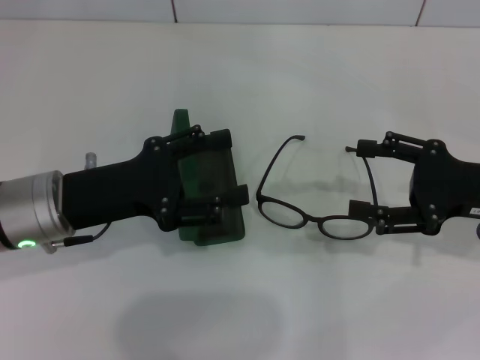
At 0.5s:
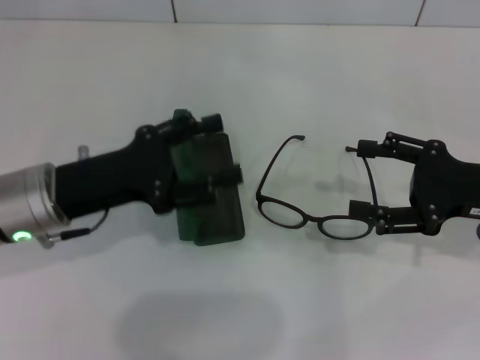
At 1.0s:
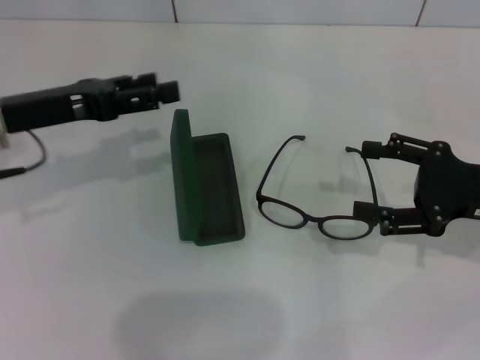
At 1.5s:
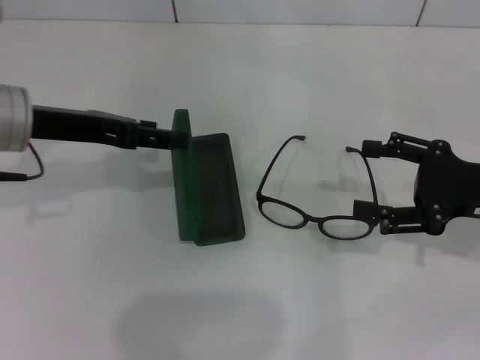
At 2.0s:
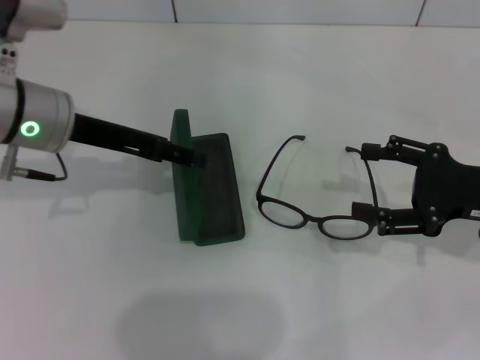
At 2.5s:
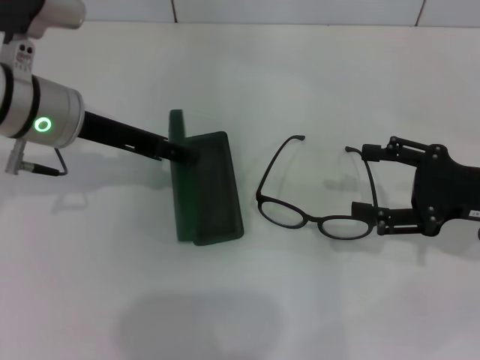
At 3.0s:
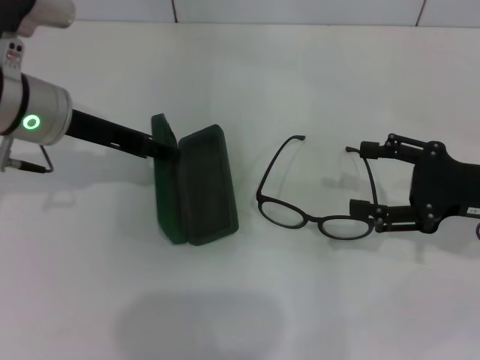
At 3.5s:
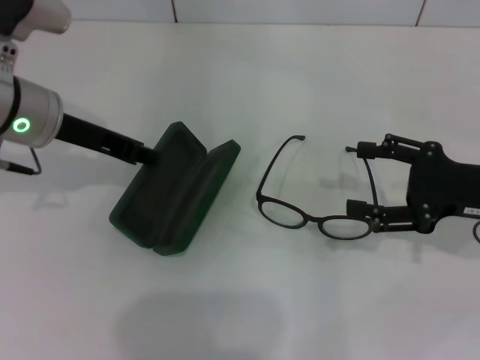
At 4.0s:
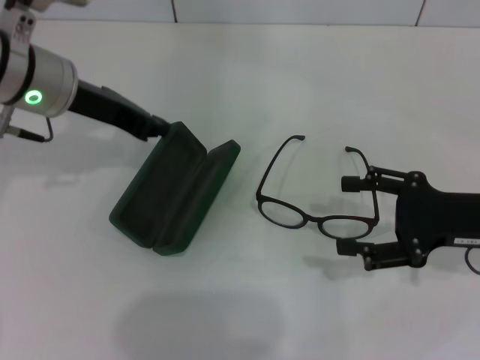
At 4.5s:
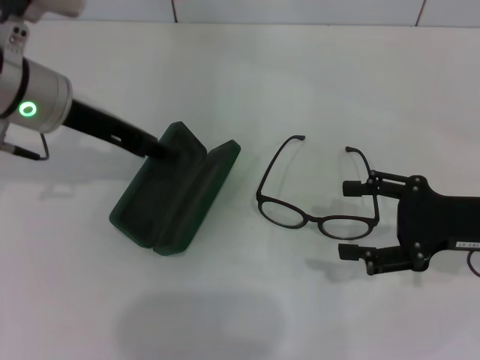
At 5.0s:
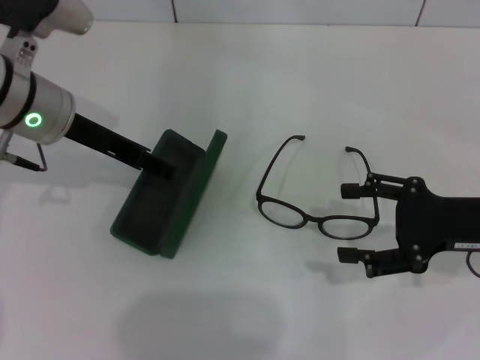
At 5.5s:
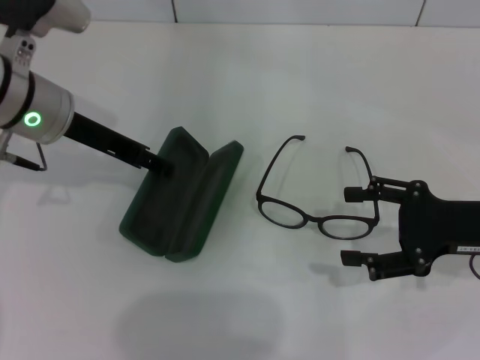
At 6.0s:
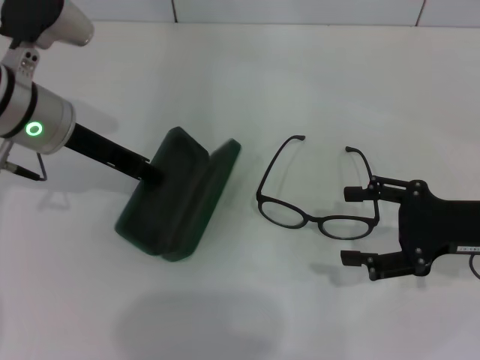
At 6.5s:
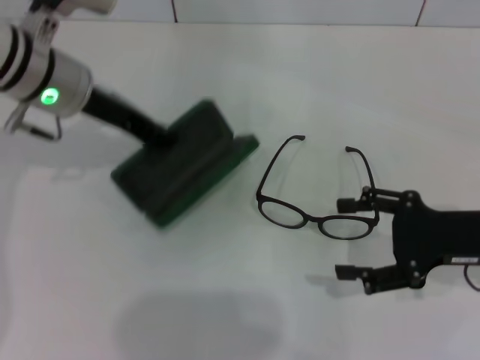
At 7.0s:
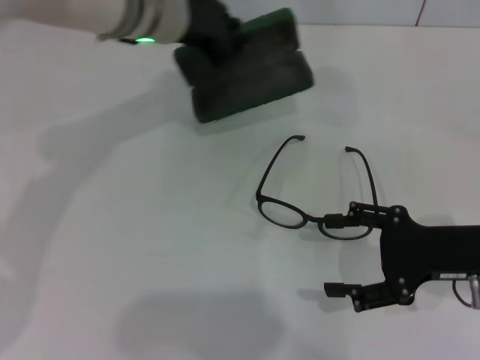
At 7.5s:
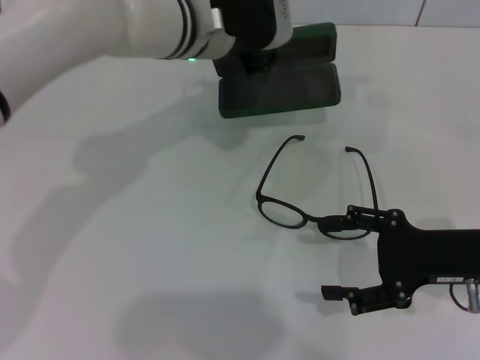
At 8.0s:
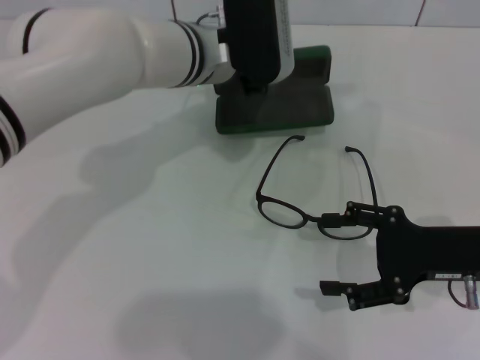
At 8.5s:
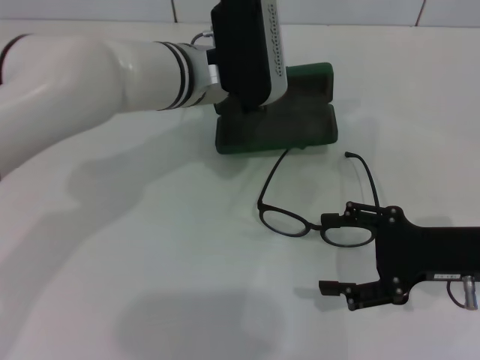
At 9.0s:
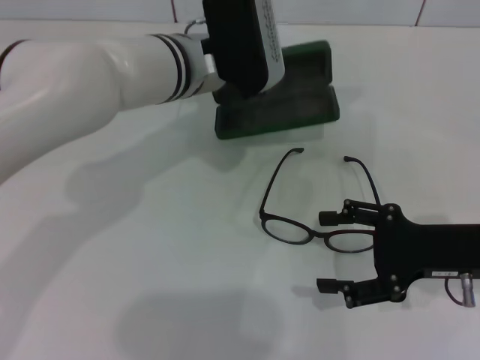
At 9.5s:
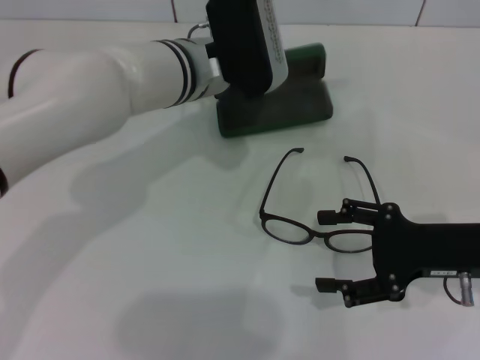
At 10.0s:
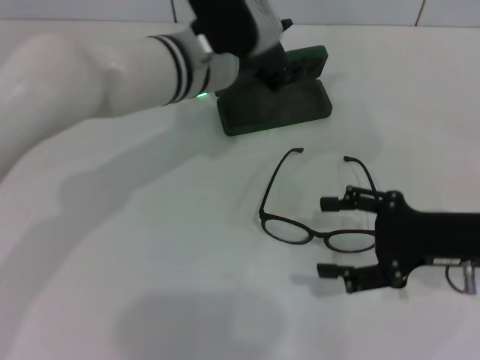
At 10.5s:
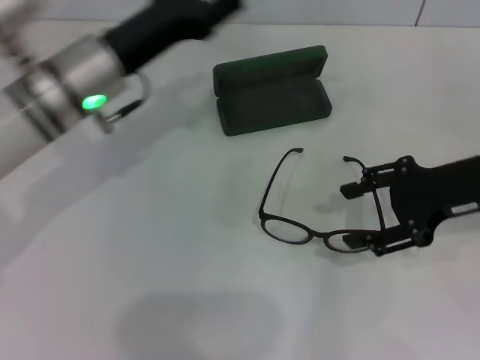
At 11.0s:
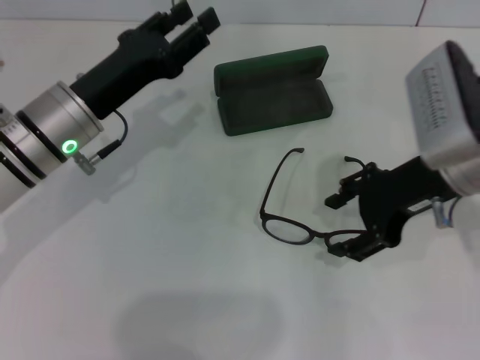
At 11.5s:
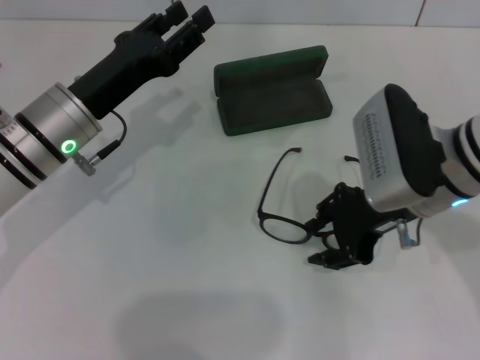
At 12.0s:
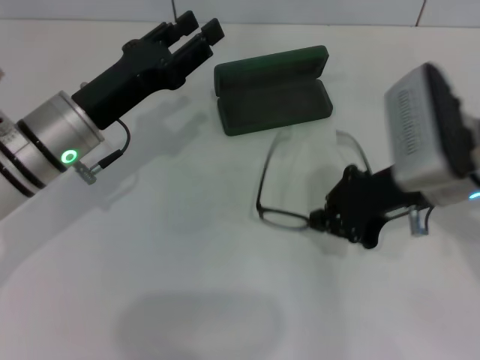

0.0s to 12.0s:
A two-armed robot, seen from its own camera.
Step, 0.0s to 5.5s: Grab the glasses case with your left hand.
Step, 6.0s to 9.0s: Place the glasses case in the center of the table with your left hand.
Step, 10.0s to 11.5s: Grab the eyeglass frame with your right hand.
0.0s to 2.0s: The left gripper shifts approximately 10 cm forward and upward.
2.0s to 4.0s: The left gripper closes its fingers.
4.0s to 6.0s: The left gripper opens its fingers.
6.0s to 8.0s: The left gripper travels to the right by approximately 15 cm.
8.0s to 10.0s: The left gripper opens.
10.0s to 12.0s: The right gripper shifts about 10 cm to the left and upward, and closes its fingers; the left gripper travels to the left and backward by about 15 cm.

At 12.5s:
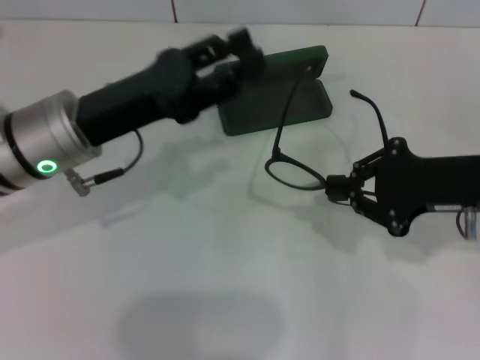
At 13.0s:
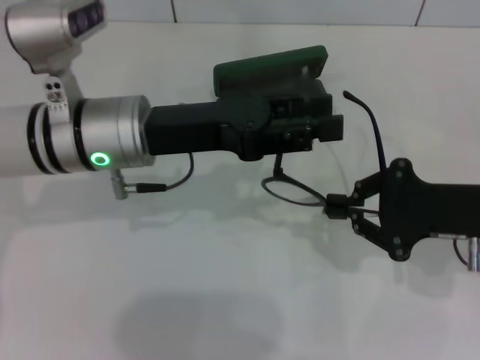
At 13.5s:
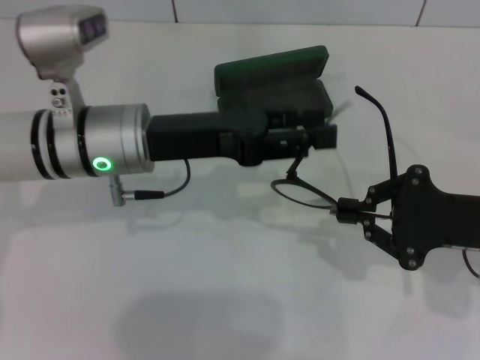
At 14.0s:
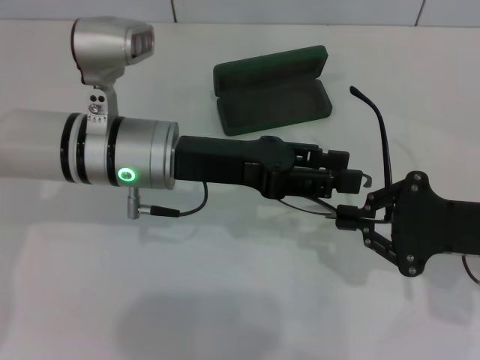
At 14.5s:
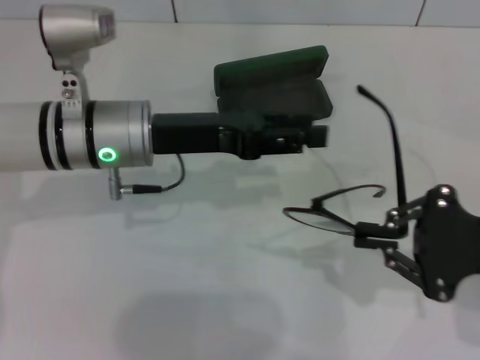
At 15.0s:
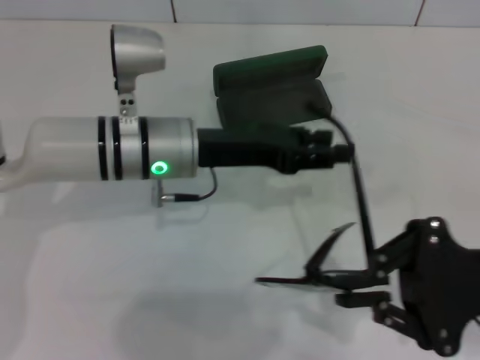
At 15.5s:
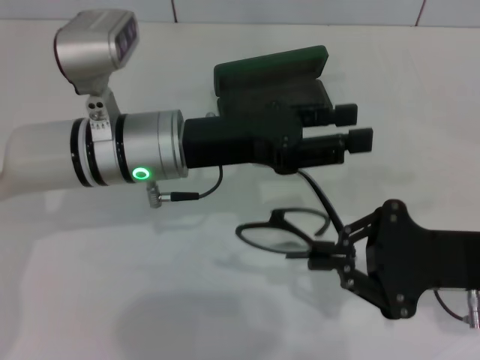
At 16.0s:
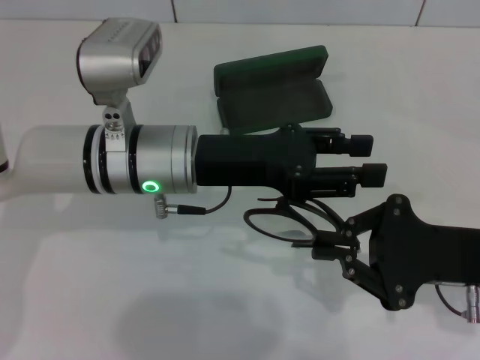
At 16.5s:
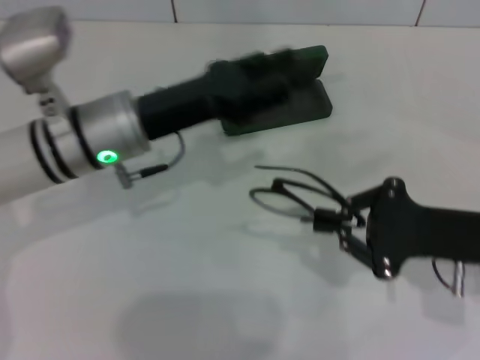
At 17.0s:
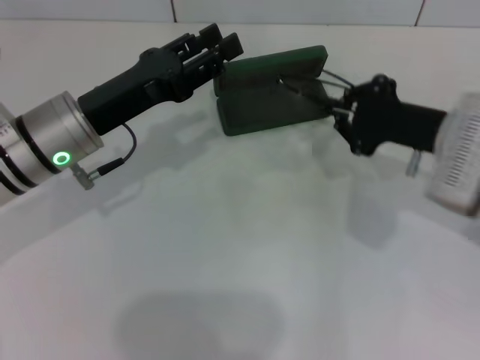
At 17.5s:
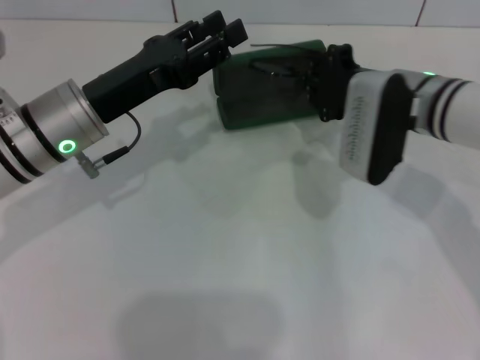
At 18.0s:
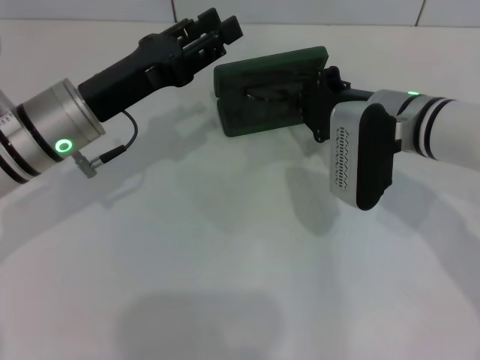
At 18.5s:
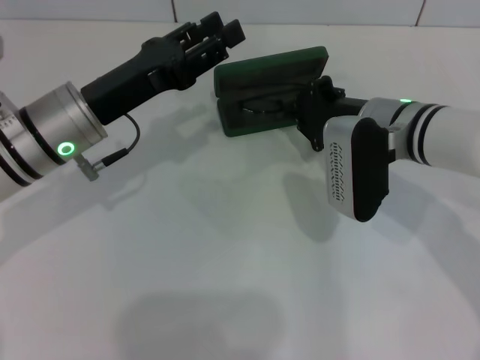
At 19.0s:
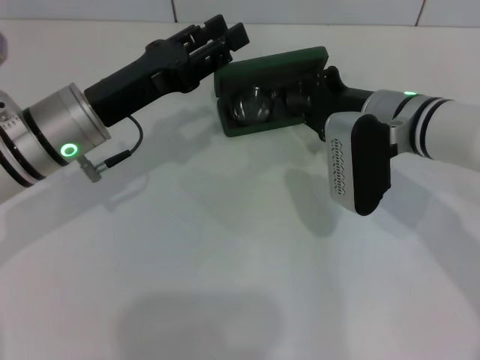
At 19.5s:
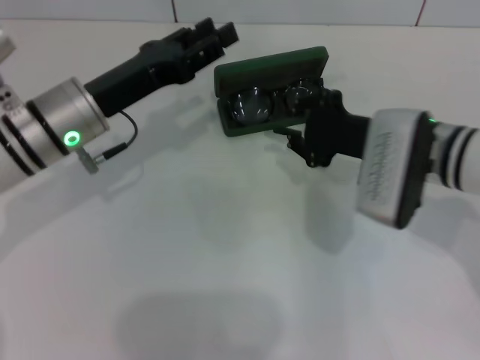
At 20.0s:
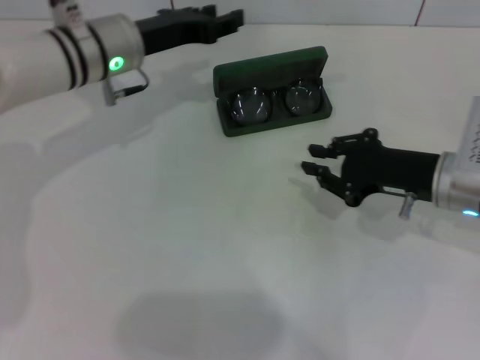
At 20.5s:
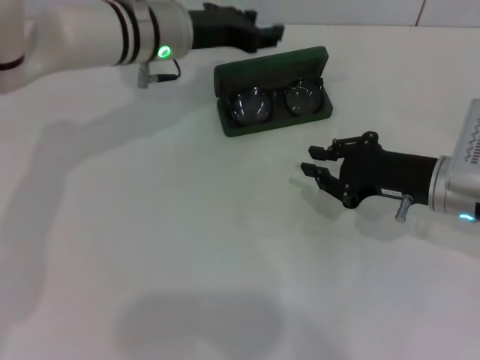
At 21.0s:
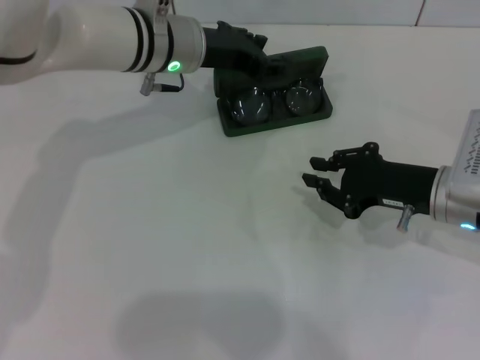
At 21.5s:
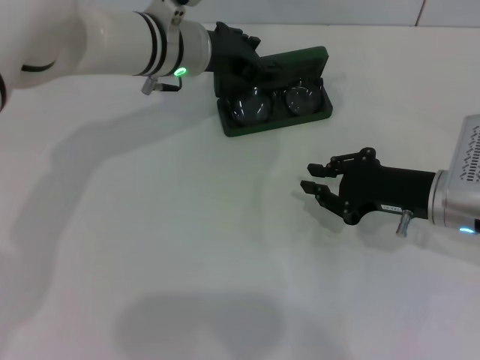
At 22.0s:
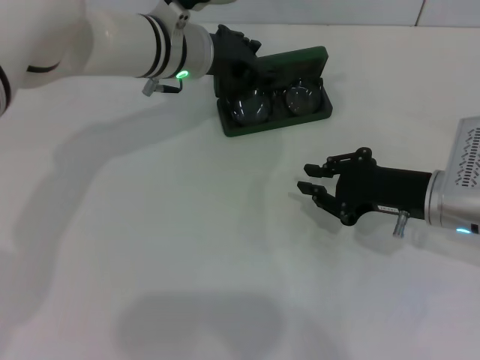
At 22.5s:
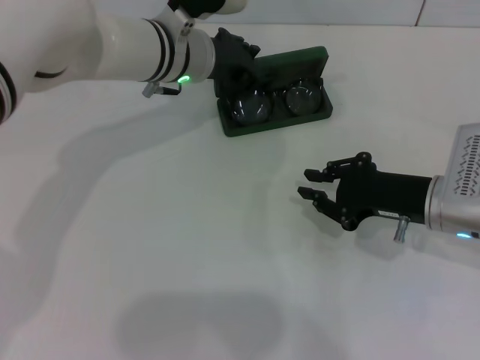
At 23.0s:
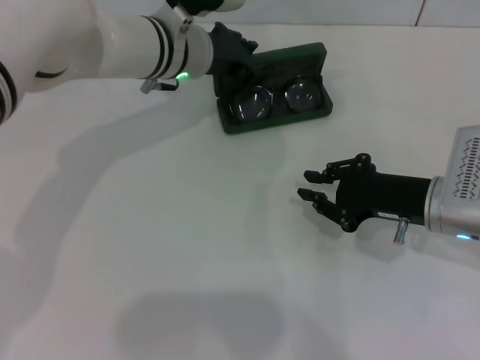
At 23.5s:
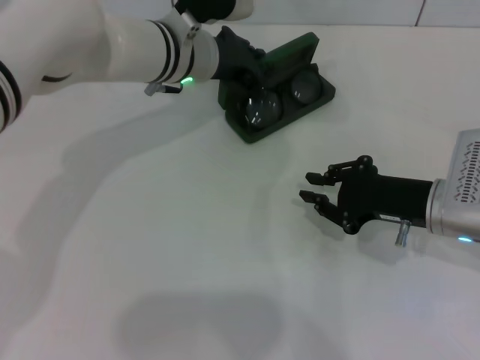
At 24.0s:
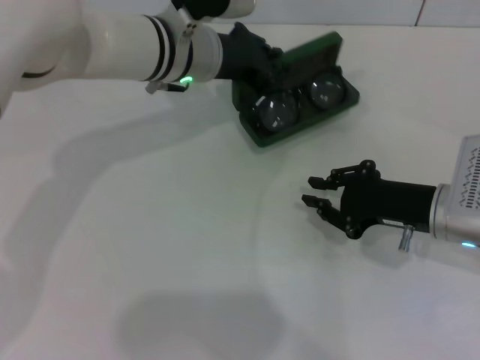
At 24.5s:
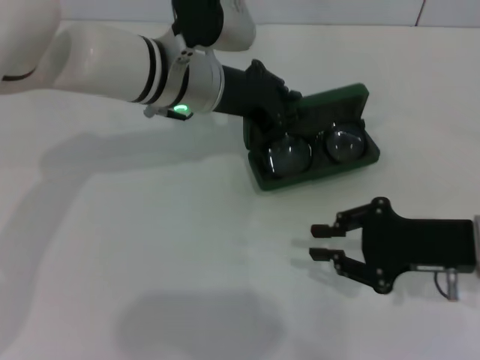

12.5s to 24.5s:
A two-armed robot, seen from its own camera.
Step, 12.5s to 16.0s: Fold the frame with your left hand.
Step, 16.5s to 19.0s: Put the glasses into the case with your right hand.
Step, 19.5s to 23.0s: Grab the glasses case with your left hand.
12.5s to 14.5s: The right gripper shifts about 5 cm backward.
16.5s to 18.5s: The right gripper is displaced forward and to the left by about 15 cm.
18.5s to 20.5s: The right gripper heads to the right, covering roughly 10 cm; the left gripper moves forward and to the right, approximately 15 cm.
22.5s to 24.5s: The left gripper closes. The right gripper moves some 5 cm.

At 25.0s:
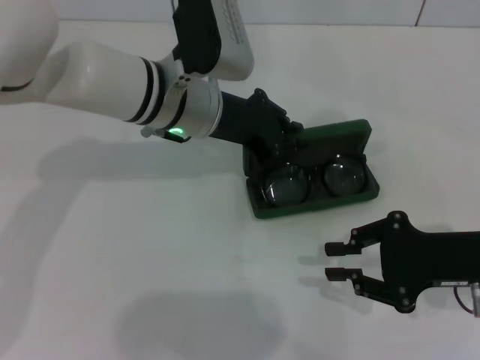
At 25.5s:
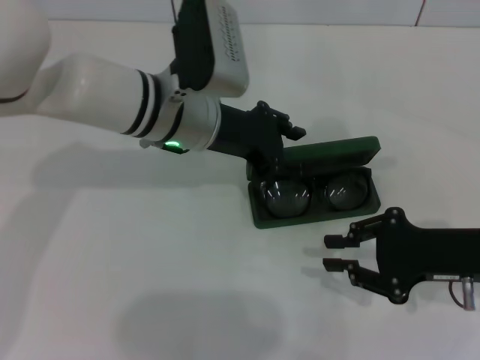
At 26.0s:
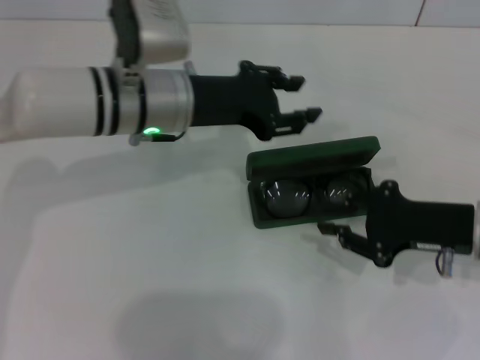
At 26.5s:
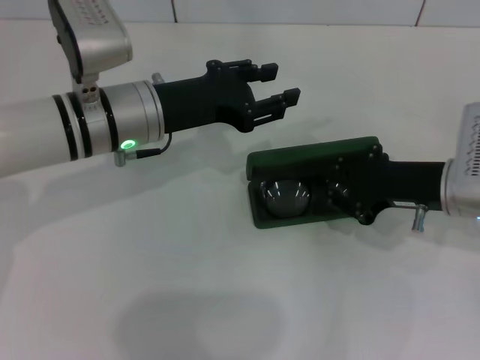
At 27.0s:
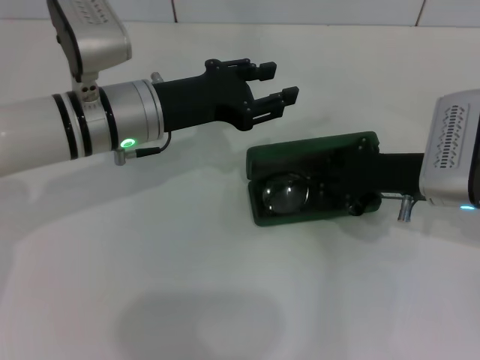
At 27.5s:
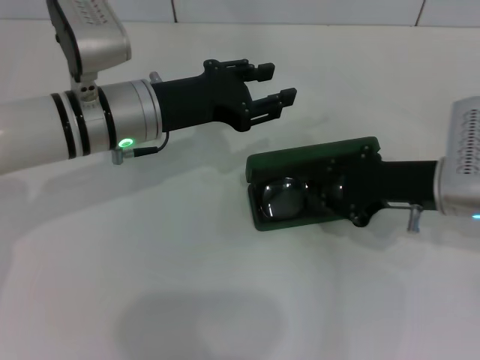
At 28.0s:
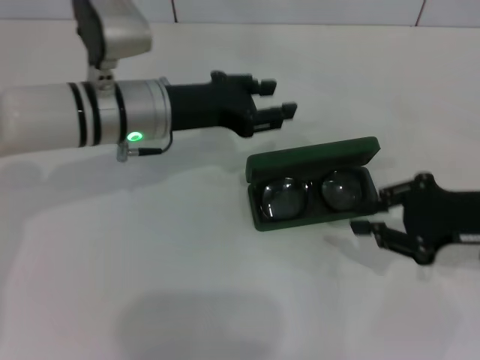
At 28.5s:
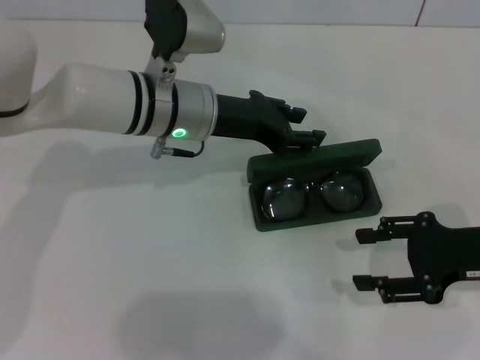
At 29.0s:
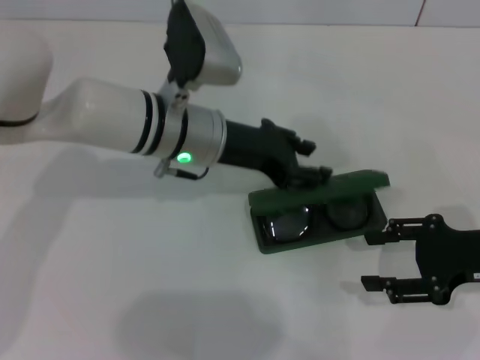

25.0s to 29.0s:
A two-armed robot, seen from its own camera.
25.0s to 27.0s: The left gripper is displaced to the left by about 5 cm, and opens. The right gripper goes roughly 10 cm forward and to the left.
27.0s to 29.0s: The right gripper is displaced to the right and backward by some 10 cm, and opens its fingers. Meanwhile the left gripper goes some 5 cm to the right.
